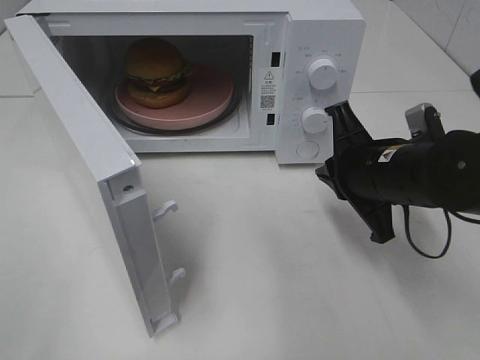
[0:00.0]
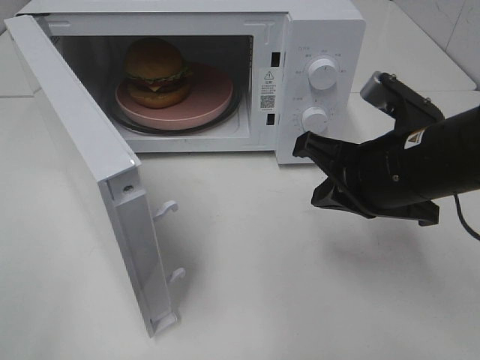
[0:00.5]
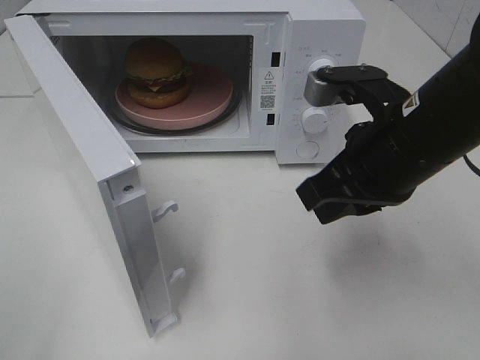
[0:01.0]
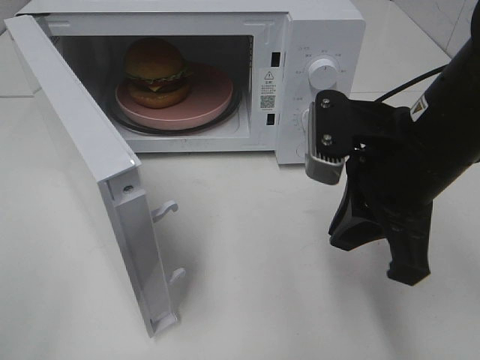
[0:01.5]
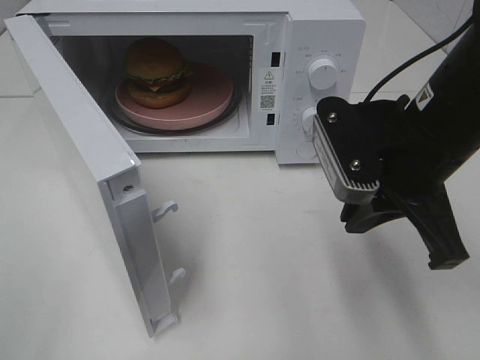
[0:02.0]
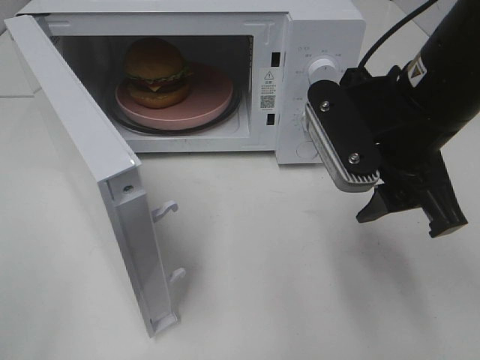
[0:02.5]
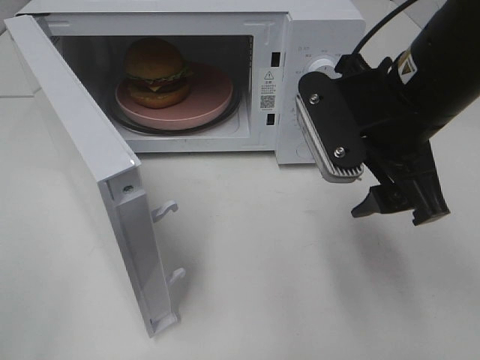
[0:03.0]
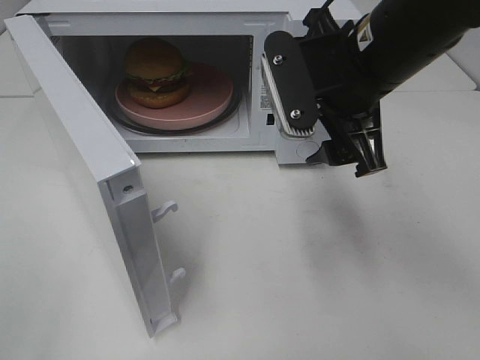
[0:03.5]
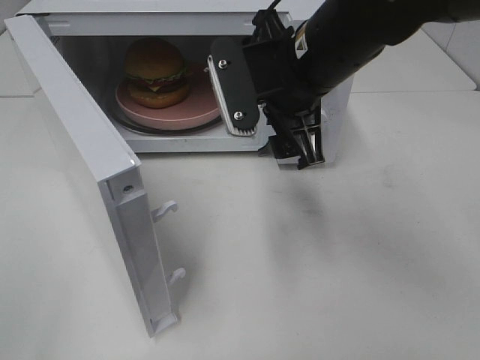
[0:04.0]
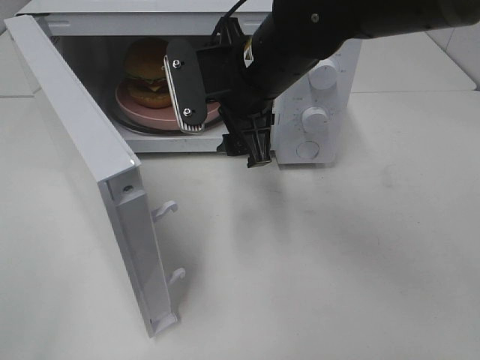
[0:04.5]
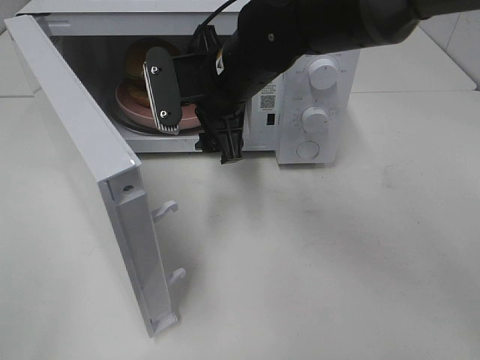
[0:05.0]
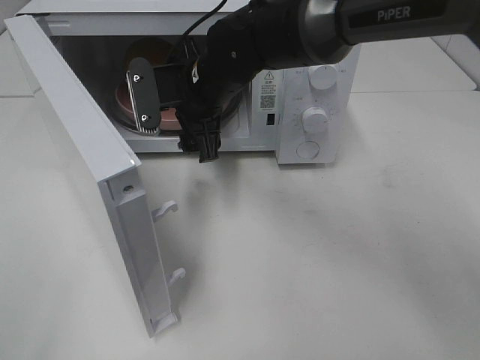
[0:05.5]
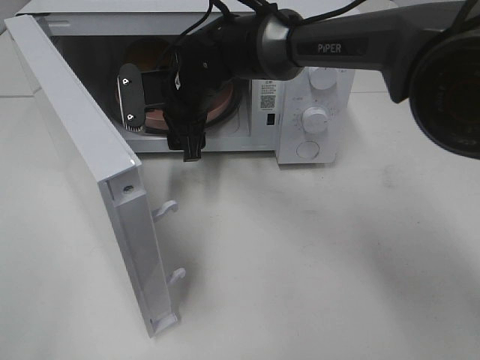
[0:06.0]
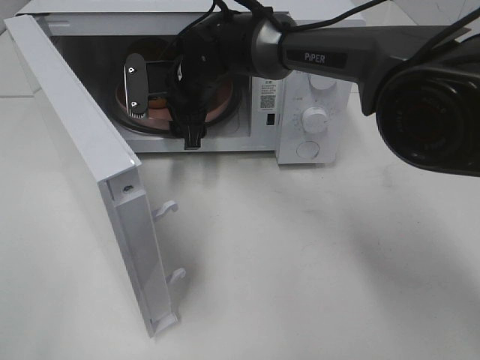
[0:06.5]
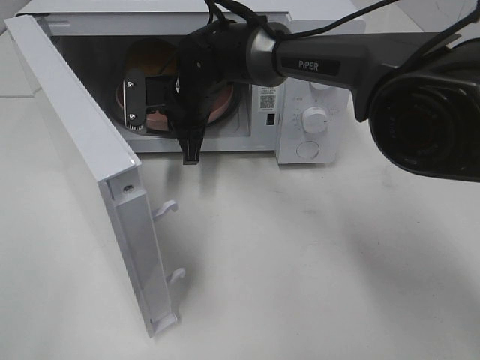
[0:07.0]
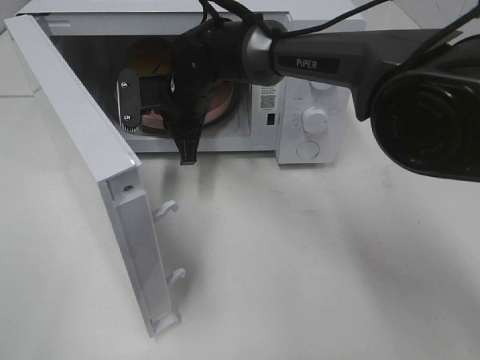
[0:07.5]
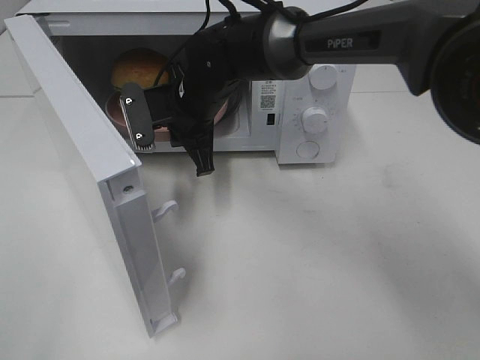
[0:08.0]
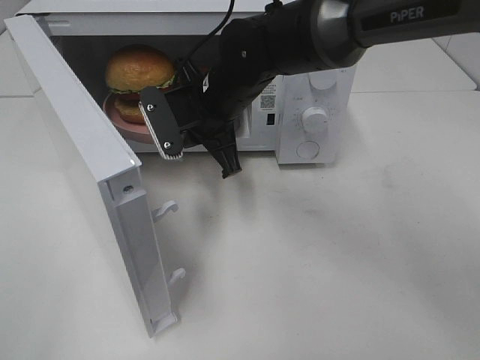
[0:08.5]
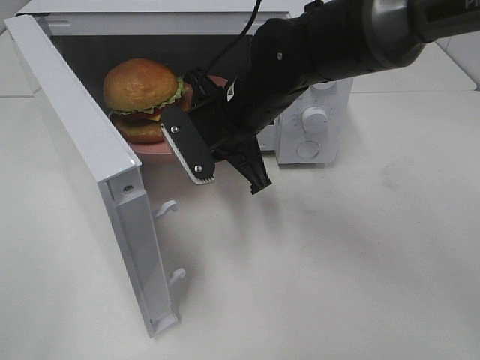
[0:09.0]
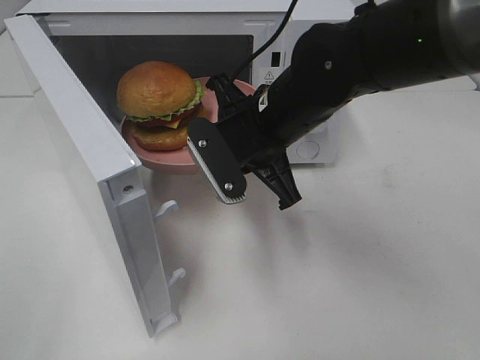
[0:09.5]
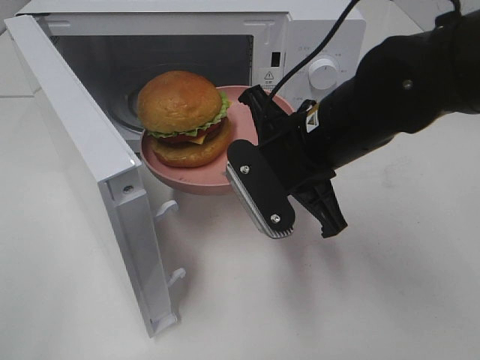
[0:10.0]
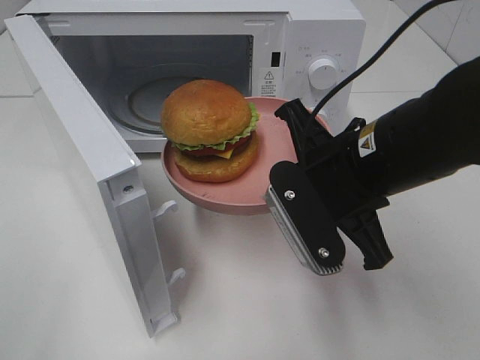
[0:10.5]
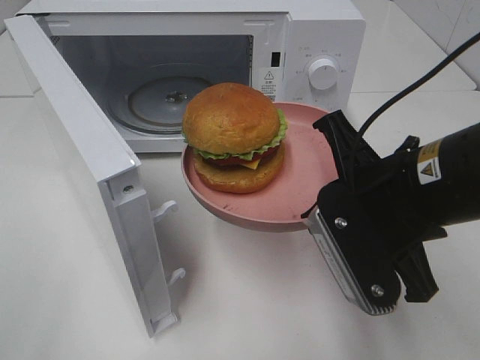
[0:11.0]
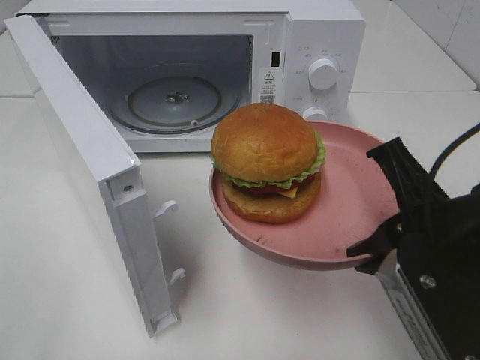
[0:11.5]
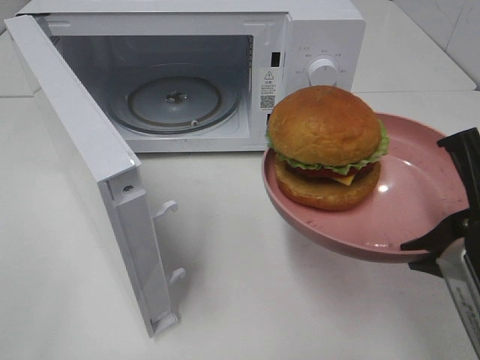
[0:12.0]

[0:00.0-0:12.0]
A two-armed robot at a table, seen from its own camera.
Task of the whole recording: Heat the burger.
Step, 0:00.0 to 0:07.0: Right hand: grab the plate with the hamburger.
0:00.0 to 0:02.0: The right gripper is displaced upward by some 10 cm.
0:02.0 to 0:04.0: The right gripper goes roughly 10 cm to the left and forward, and opens up.
0:04.0 to 0:06.0: The right gripper heads forward, to the left and downward, covering about 20 cm.
0:06.0 to 0:08.0: The right gripper closes up.
0:08.0 to 0:10.0: The right gripper travels backward and to the right by approximately 20 cm.
0:10.0 to 0:12.0: The right gripper goes roughly 20 cm backward and to the right.

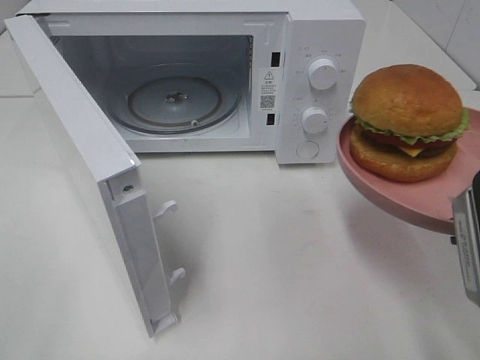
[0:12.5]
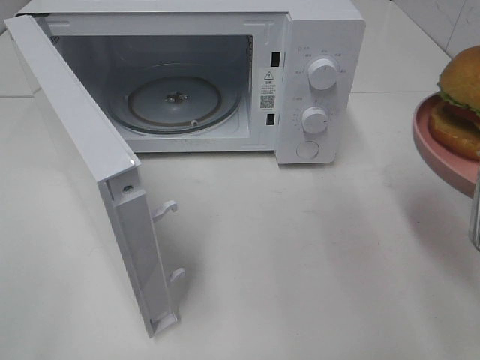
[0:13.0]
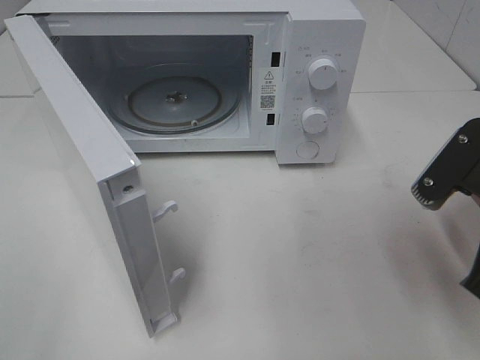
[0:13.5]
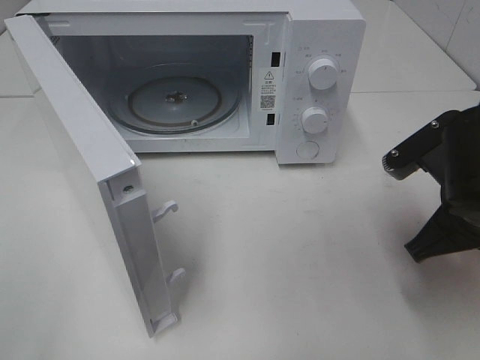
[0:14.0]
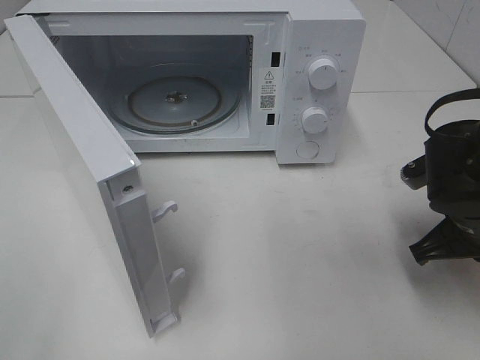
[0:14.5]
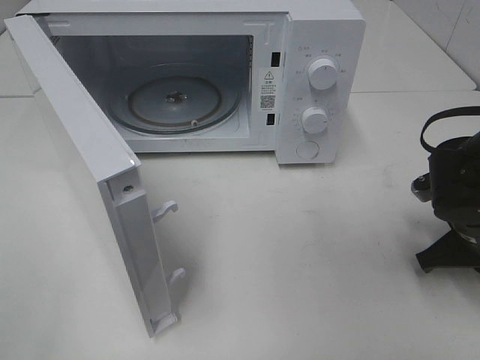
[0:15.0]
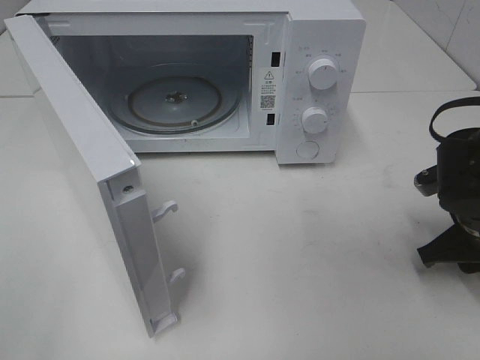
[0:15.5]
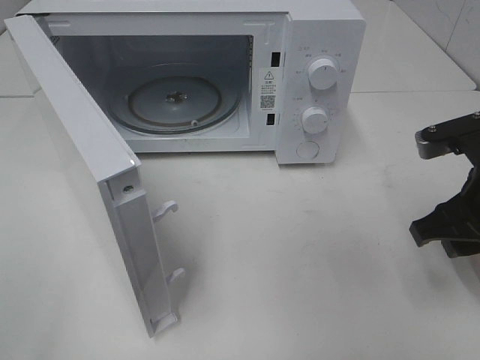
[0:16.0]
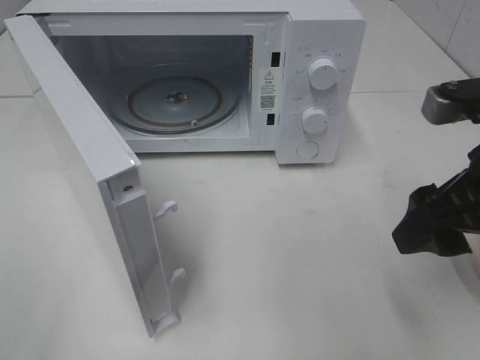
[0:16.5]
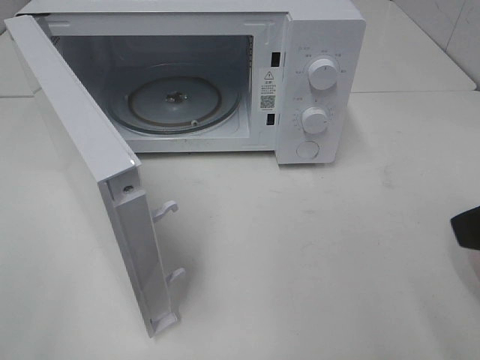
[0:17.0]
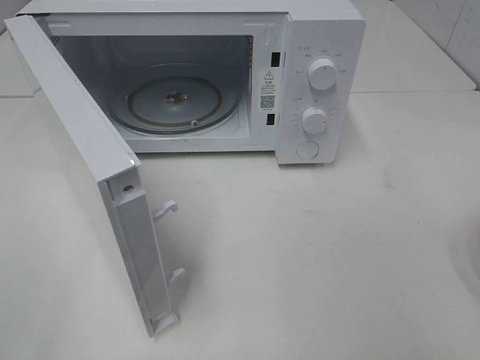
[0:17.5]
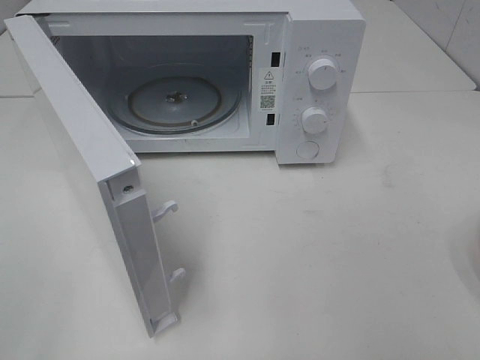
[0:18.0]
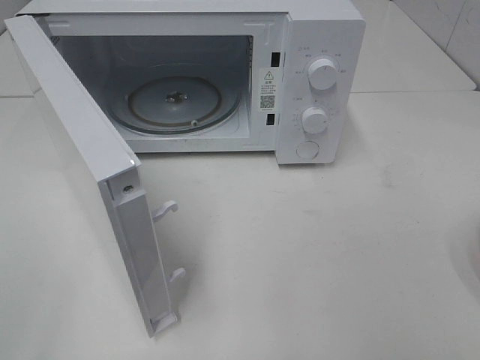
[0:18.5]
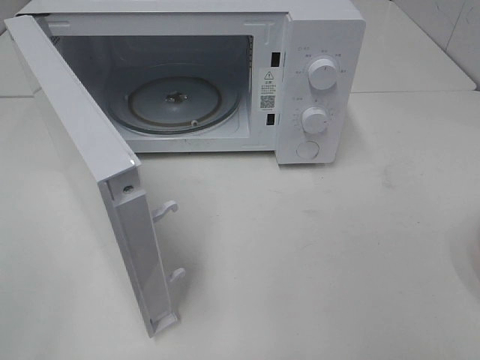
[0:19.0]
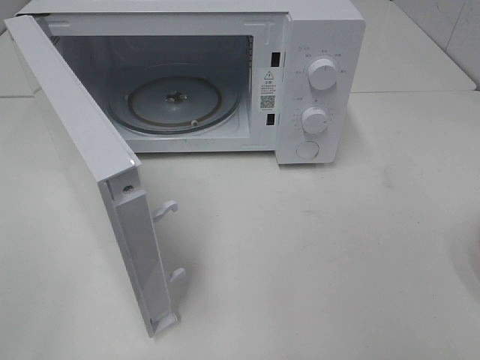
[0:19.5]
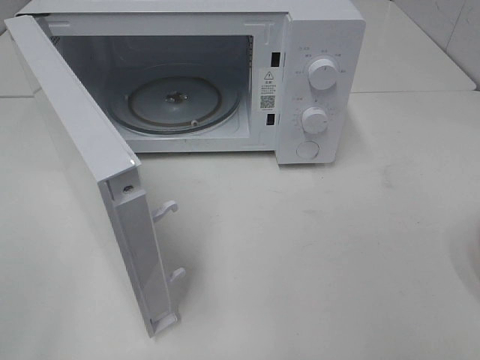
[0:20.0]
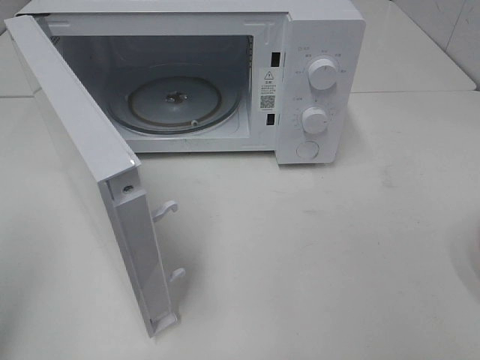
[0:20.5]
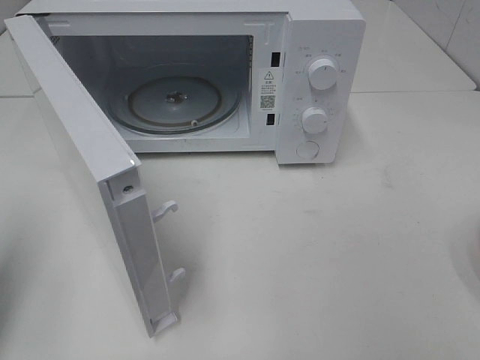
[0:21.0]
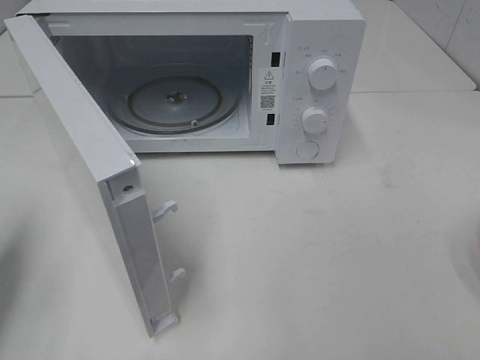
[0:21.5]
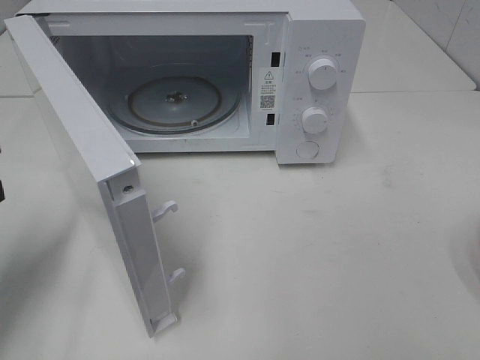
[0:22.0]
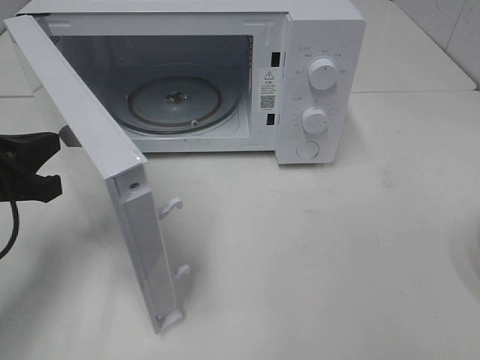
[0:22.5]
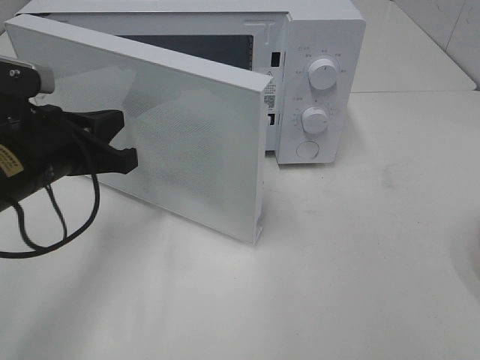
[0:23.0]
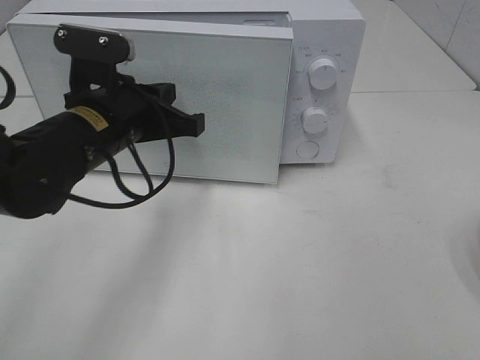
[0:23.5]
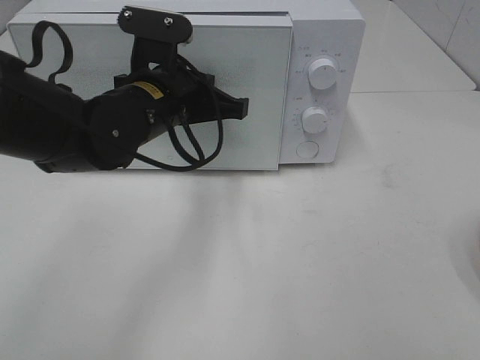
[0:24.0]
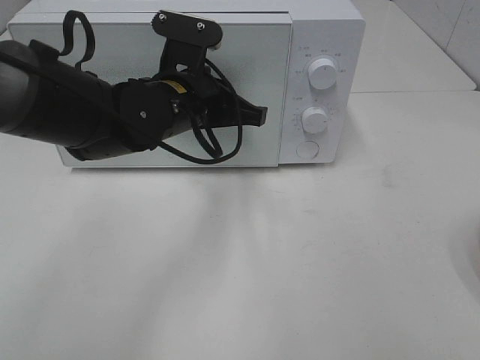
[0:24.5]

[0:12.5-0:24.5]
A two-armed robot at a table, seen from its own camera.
Task of the whole recording: Heat the burger.
Step, 0:12.5 to 0:15.5: Right hand: place the plate on the table.
0:12.5 to 0:14.5: The right gripper shifts approximately 15 cm downward and forward.
0:14.5 to 0:16.5: The right gripper shifts roughly 15 cm upward and backward, and opens.
0:16.5 to 0:18.5: The right gripper moves backward and to the right, roughly 20 cm.
0:20.5 to 0:22.5: The left gripper travels forward and downward by approximately 20 cm.
0:22.5 to 0:24.5: The left gripper shifts about 20 cm to the right and forward.

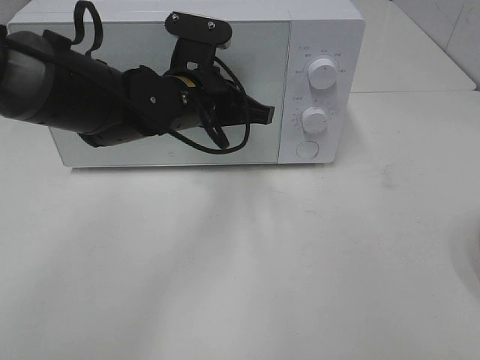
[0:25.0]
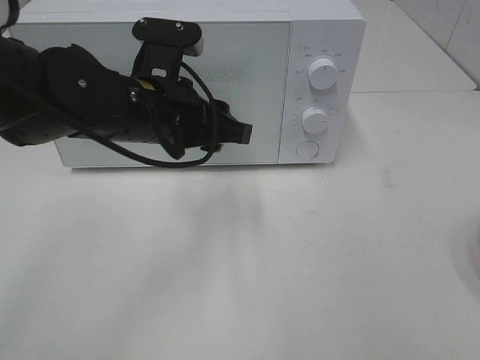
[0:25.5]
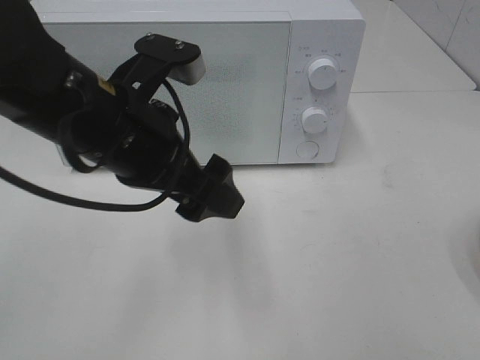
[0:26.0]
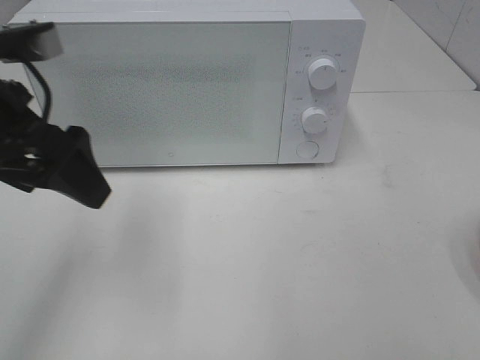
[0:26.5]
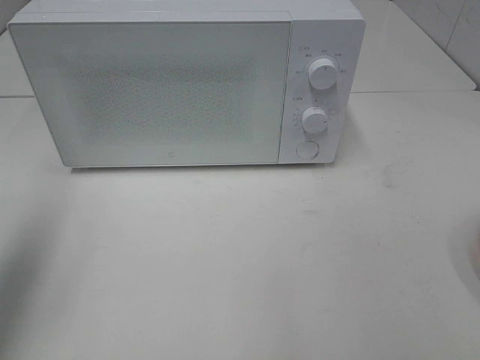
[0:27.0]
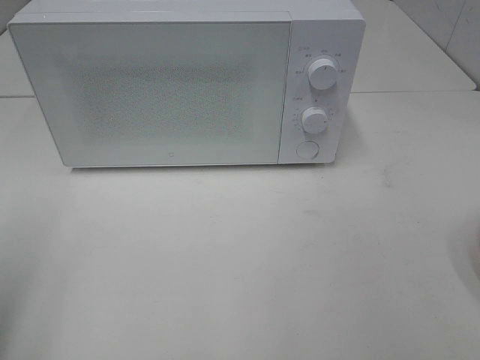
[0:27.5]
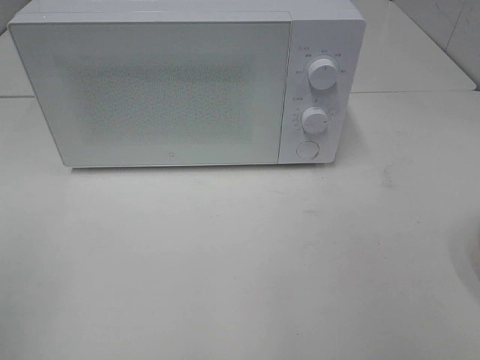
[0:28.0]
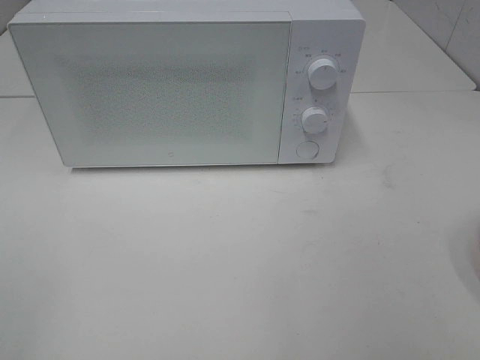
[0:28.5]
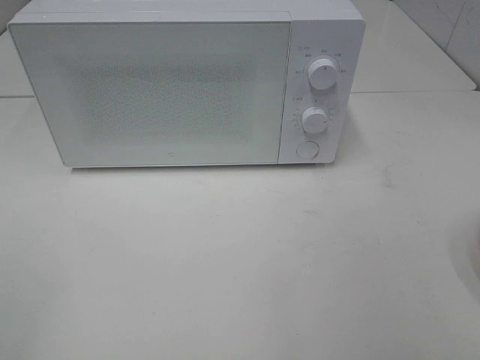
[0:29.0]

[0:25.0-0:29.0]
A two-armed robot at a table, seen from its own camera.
Task of the whole recording: Heat the burger.
0:25.0 to 0:27.0: The left gripper moves to the left, backward and upward, some 35 cm, and opens up.
0:27.0 to 0:29.0: The left gripper heads backward, covering about 20 cm.
